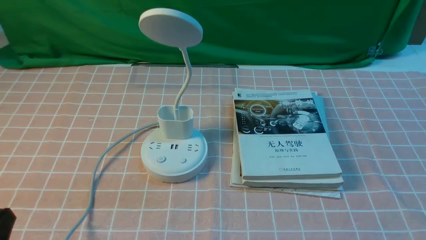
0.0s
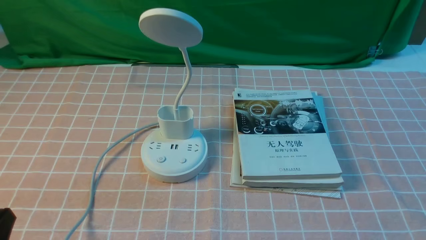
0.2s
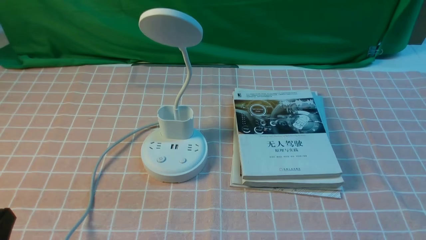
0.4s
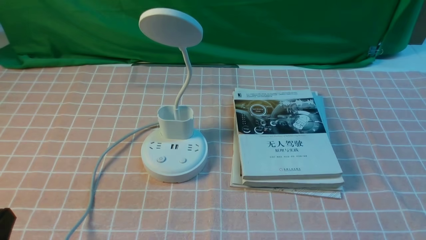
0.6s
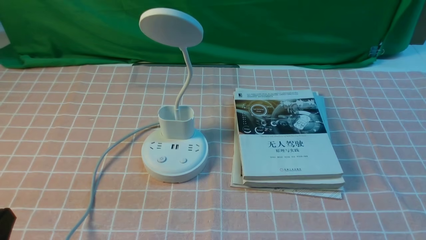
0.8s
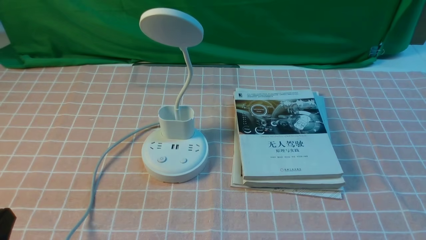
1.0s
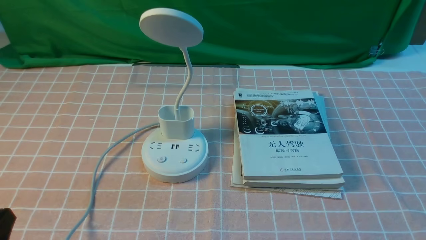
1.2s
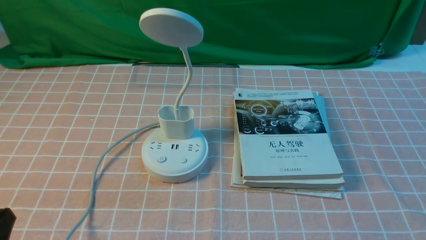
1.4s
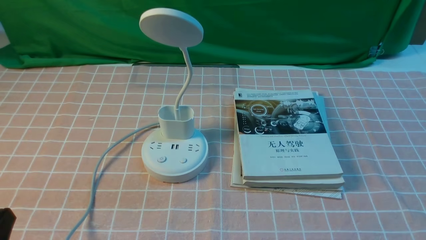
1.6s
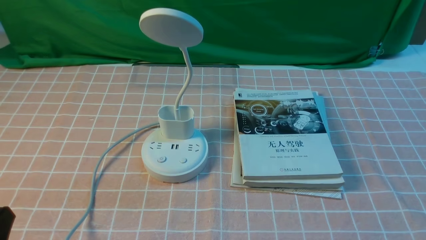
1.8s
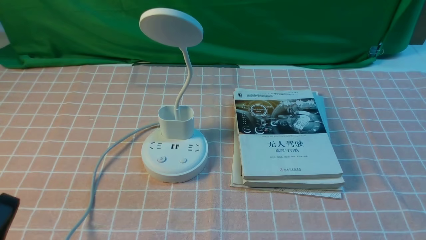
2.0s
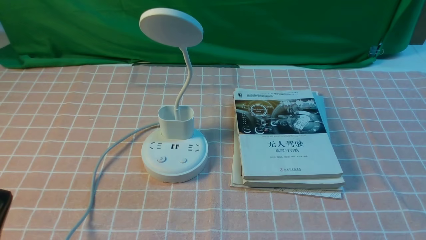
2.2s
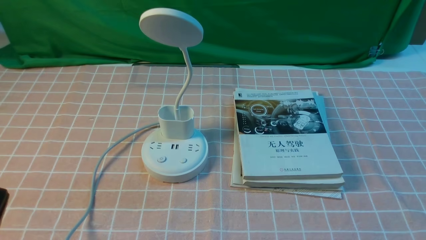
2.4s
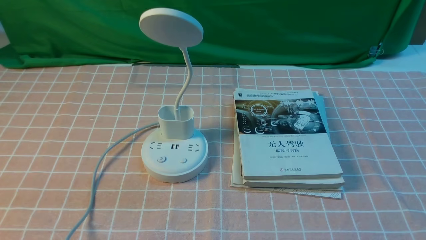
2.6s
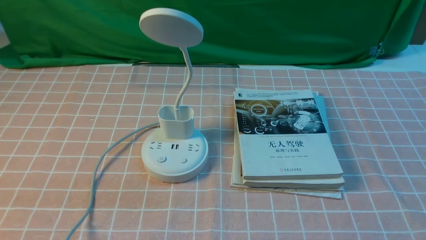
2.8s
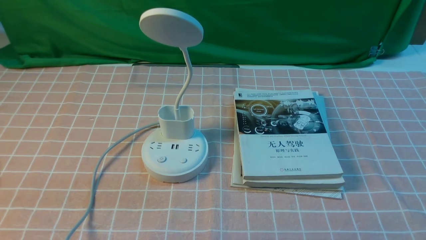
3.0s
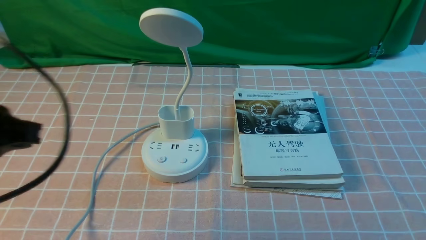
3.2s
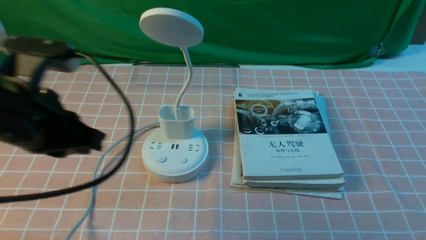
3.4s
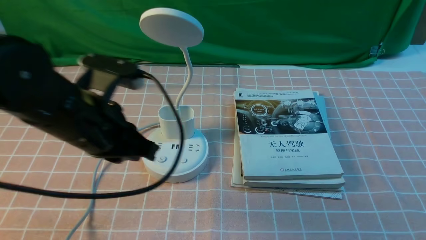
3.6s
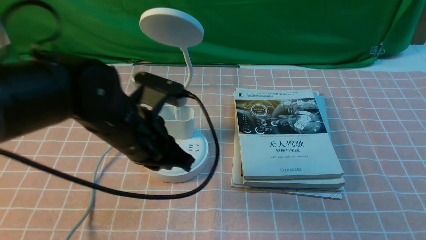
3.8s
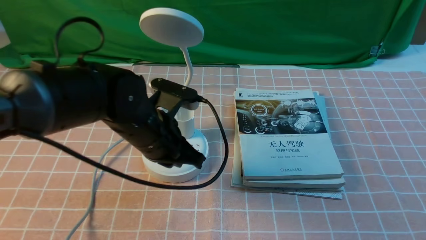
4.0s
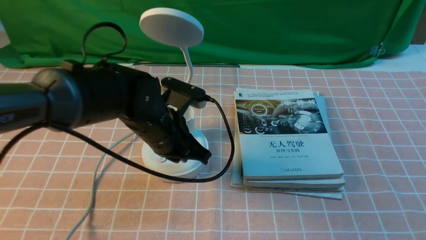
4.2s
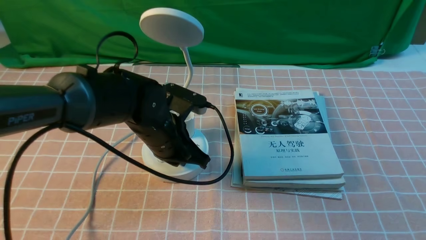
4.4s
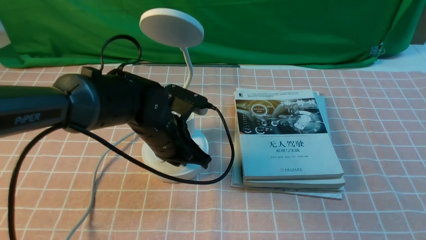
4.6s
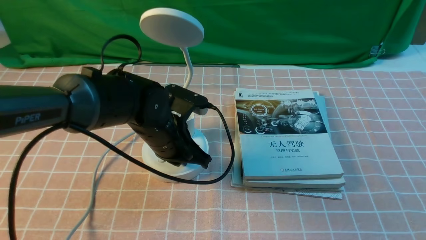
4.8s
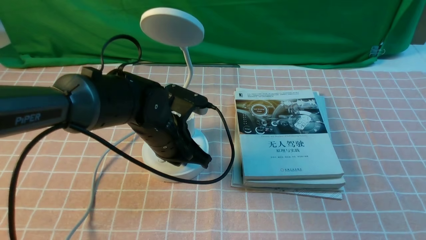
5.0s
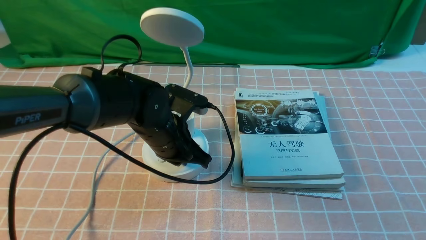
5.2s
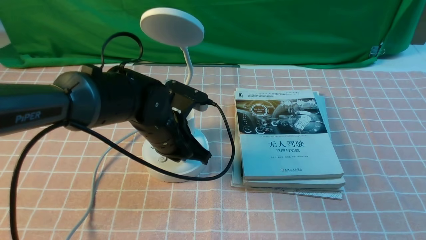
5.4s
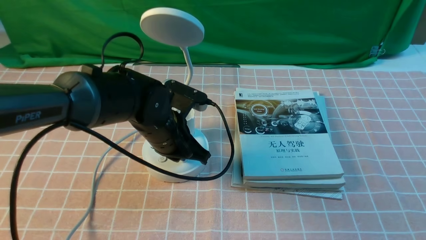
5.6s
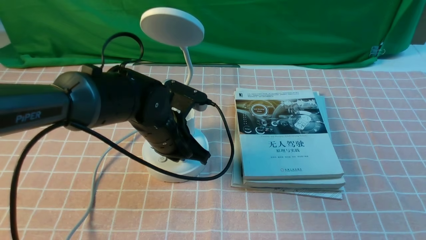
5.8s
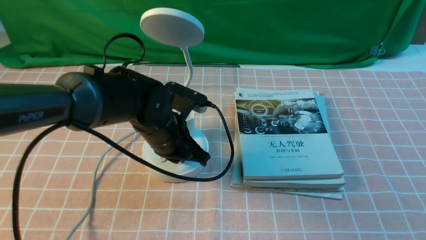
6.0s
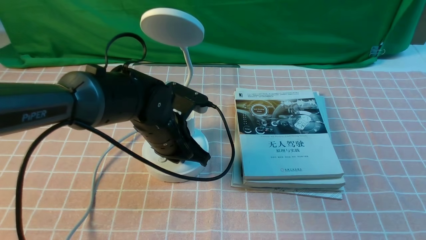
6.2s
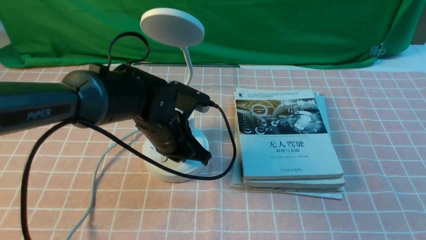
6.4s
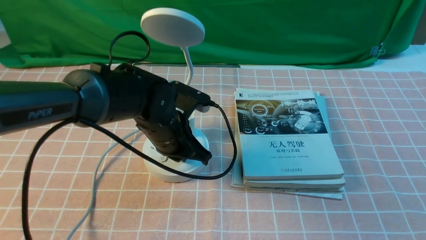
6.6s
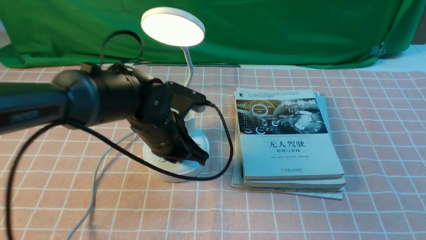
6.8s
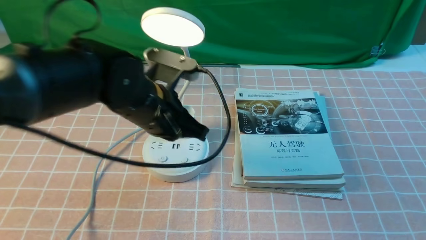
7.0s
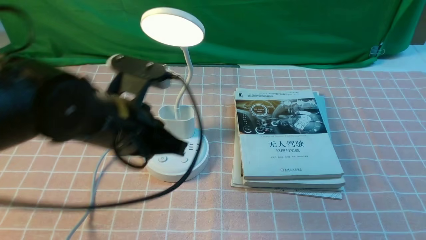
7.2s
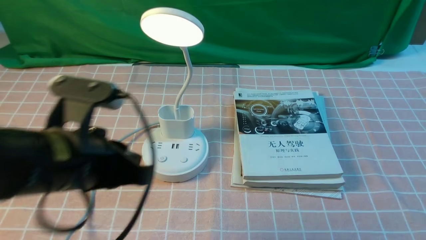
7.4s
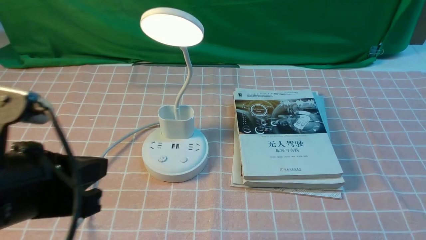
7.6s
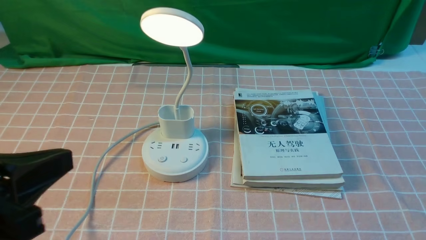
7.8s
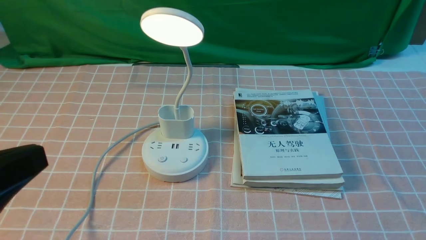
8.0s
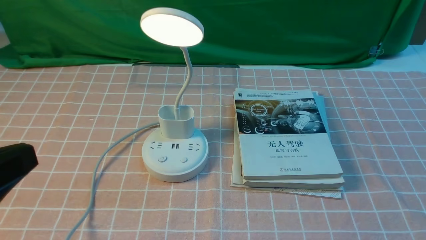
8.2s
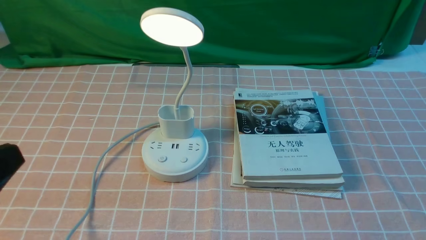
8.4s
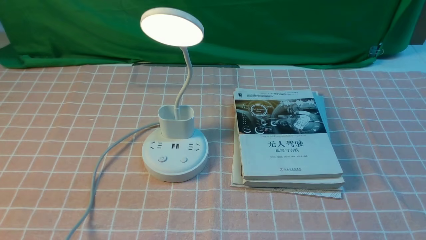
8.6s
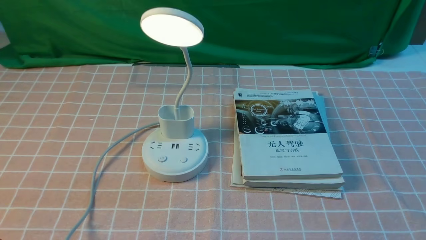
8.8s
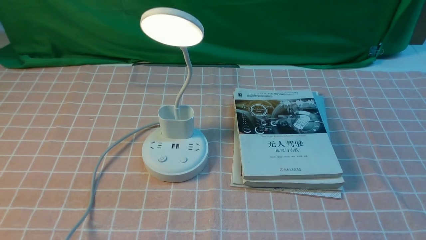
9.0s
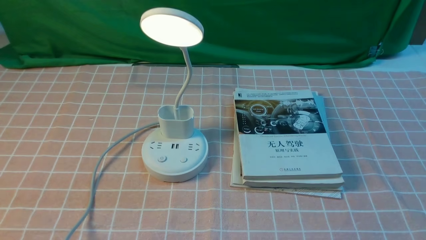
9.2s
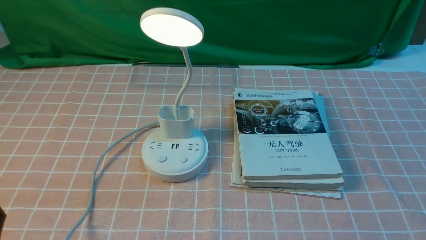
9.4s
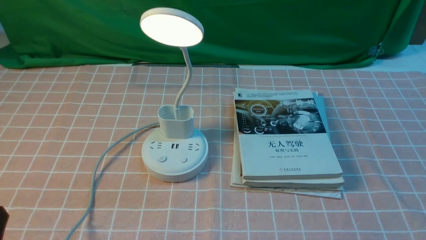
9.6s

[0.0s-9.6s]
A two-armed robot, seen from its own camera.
Step, 0.0s to 7.0s: use the left arm to press the button switch on the lamp holder.
1.6s to 3.2s: The left gripper moves upward and forward, approximately 20 cm.
3.2s to 4.8s: The left gripper shifts roughly 30 cm downward, to the right and forward.
4.8s to 6.4s: Neither gripper changes place.
6.4s to 8.0s: The left gripper goes approximately 35 cm backward, upward and to the left.
8.0s to 9.6s: The left gripper heads downward, covering roughly 15 cm.

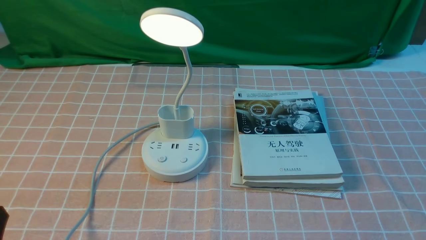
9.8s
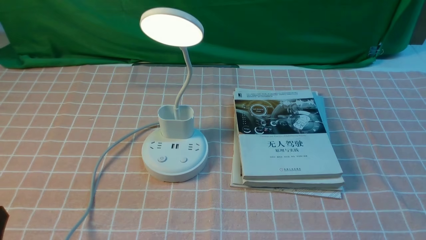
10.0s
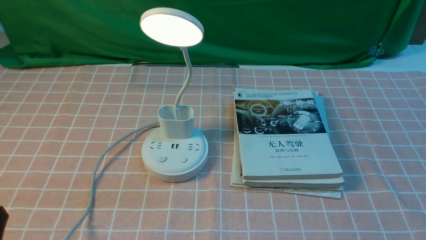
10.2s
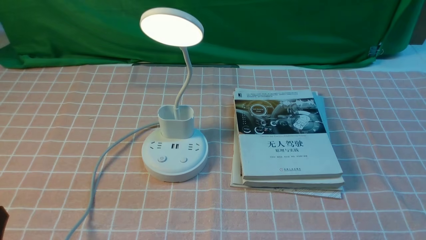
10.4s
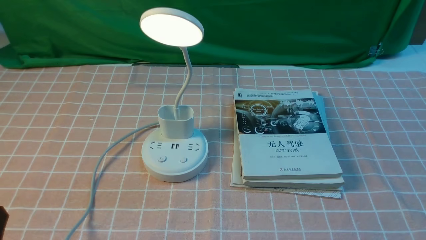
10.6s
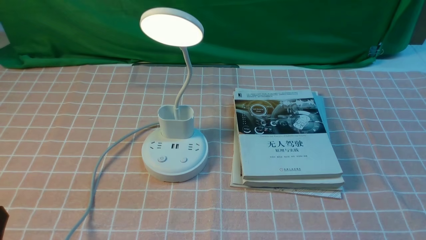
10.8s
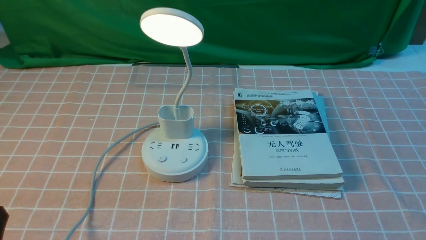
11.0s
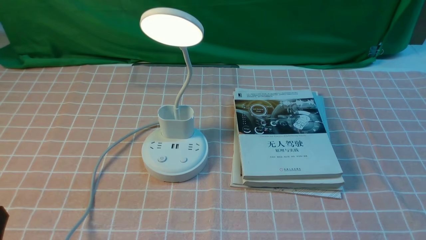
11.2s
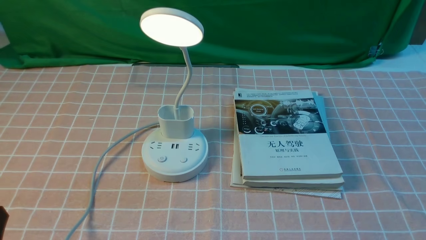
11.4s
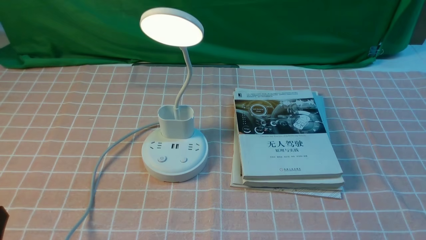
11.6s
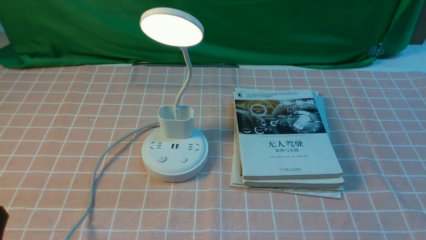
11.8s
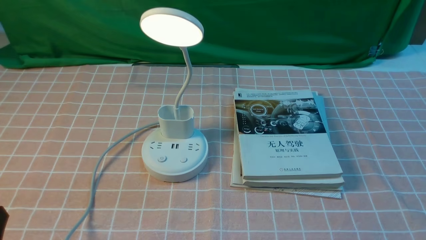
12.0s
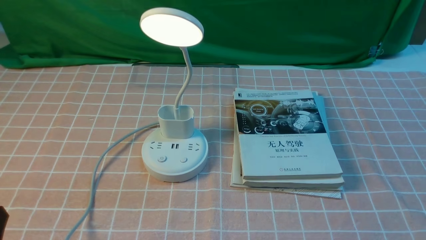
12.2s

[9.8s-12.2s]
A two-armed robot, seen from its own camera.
9.8s to 12.2s: Both grippers stay put.
